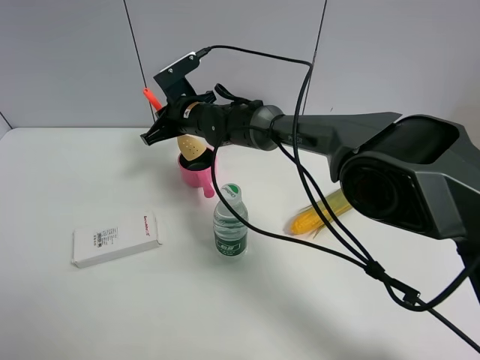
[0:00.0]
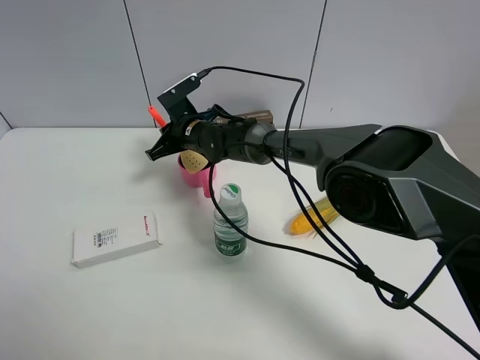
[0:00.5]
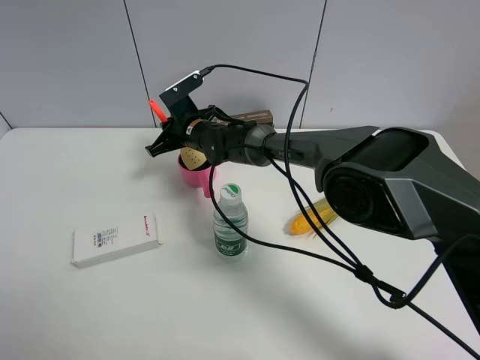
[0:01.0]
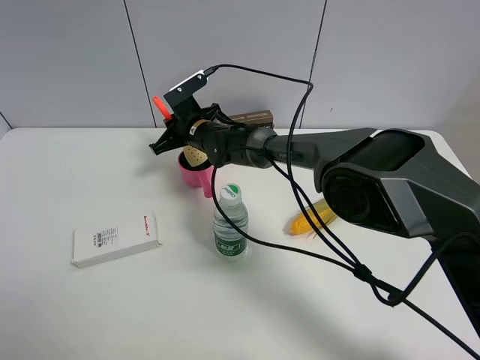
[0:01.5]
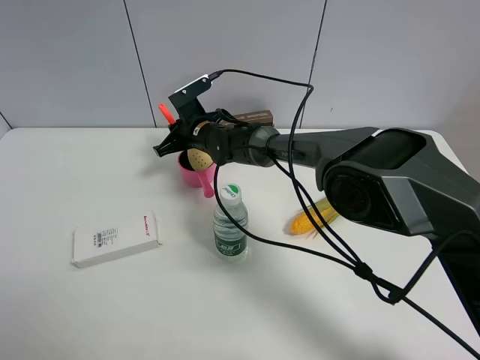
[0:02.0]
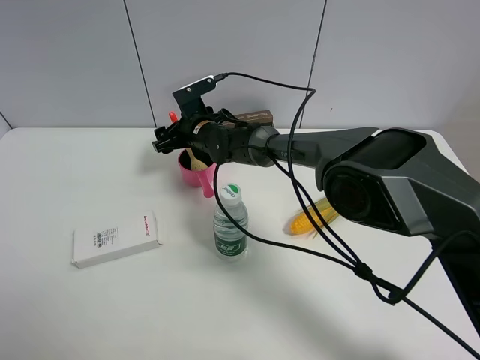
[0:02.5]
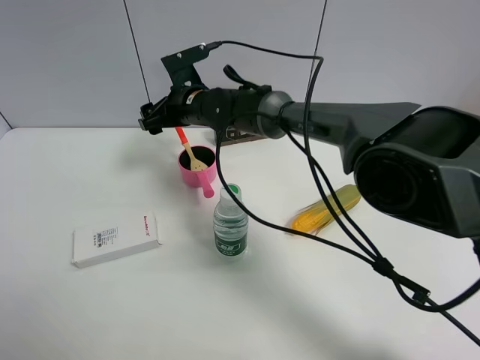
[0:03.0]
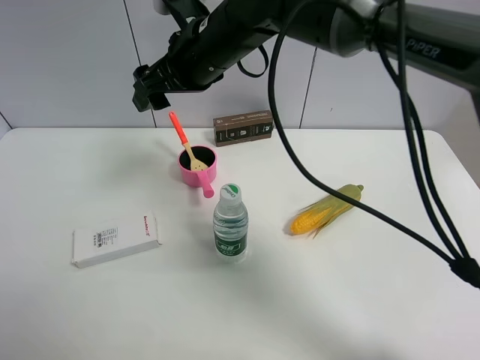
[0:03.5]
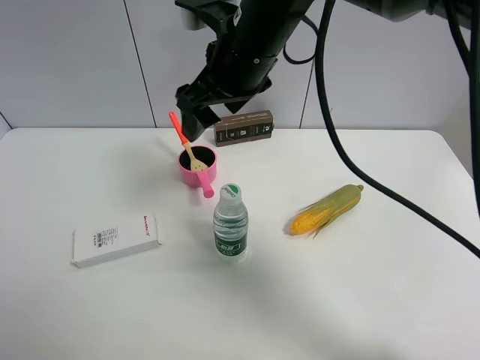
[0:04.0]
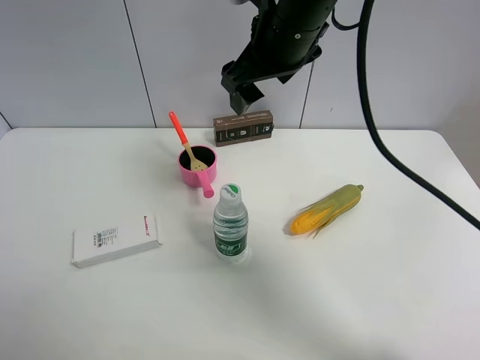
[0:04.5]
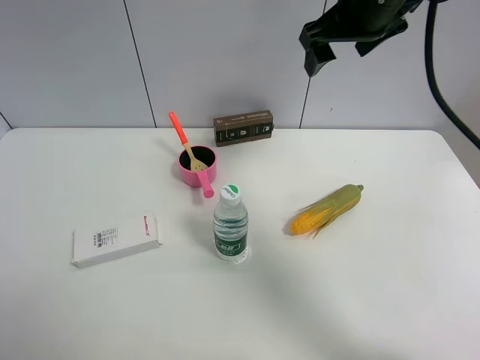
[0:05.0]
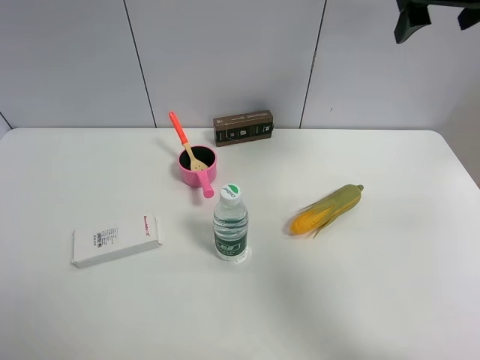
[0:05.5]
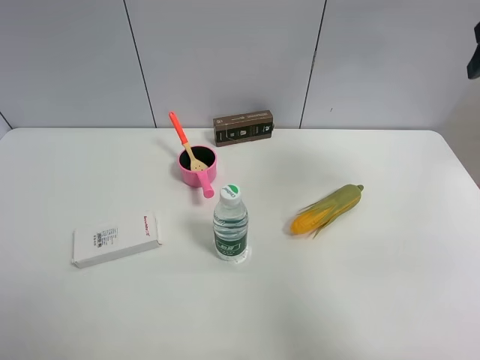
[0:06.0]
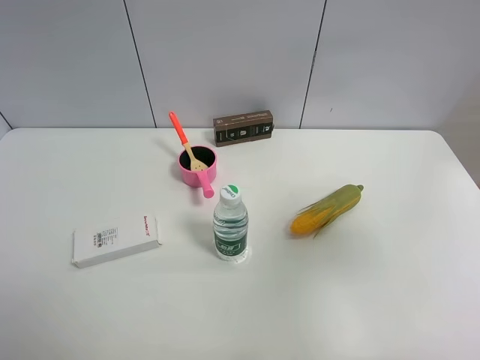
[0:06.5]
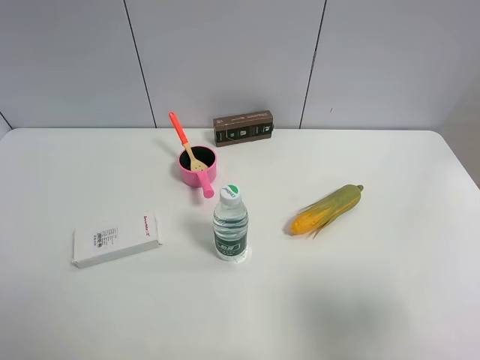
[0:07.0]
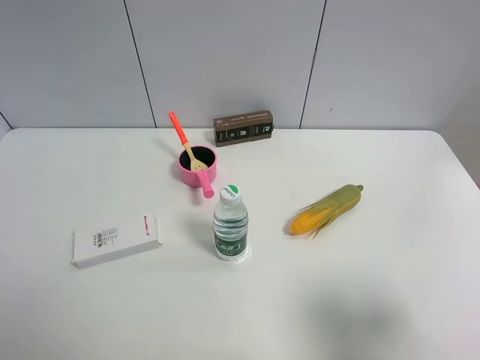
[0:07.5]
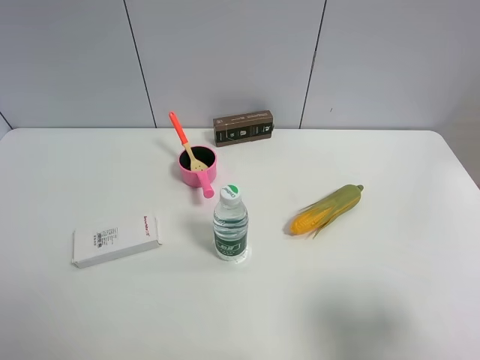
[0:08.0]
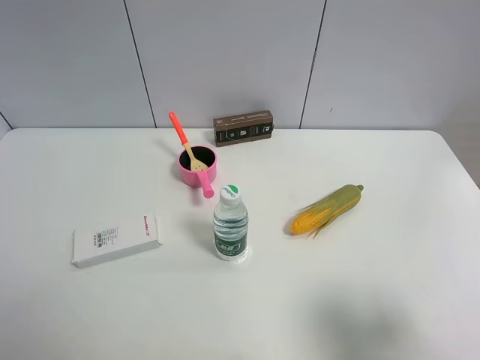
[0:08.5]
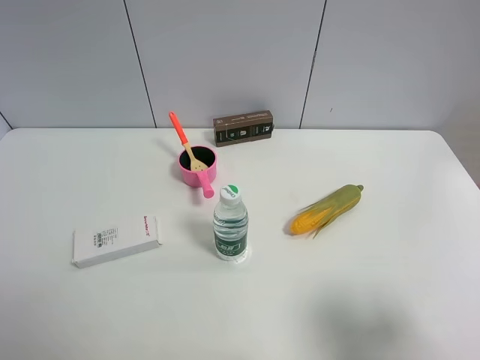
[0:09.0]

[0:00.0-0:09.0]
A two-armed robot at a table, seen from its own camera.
Task of the whole recording: the gripper move the object.
Step, 0:00.0 to 0:02.5: Place the cooking shovel into the pink pot with the right gripper.
0:00.0 to 0:02.0: The grippers move only a little.
0:02.0 to 0:04.5: The right gripper shifts about 30 cm upward, backward and to the right, and opens its fingers.
0:04.5 to 0:07.0: The right gripper travels backward and to the right by approximately 40 cm.

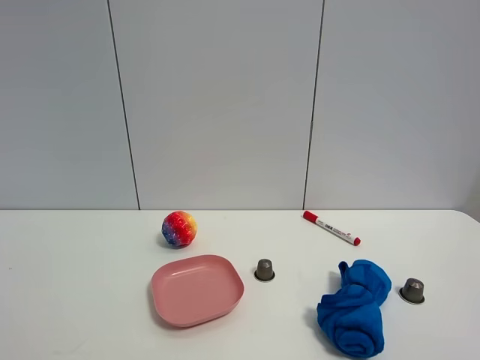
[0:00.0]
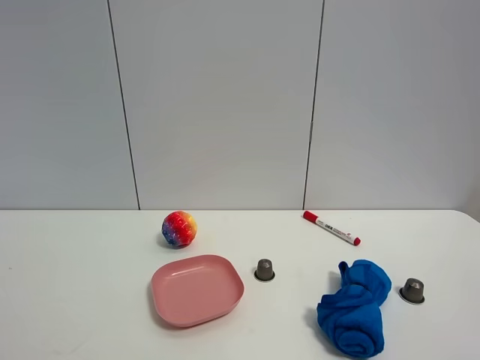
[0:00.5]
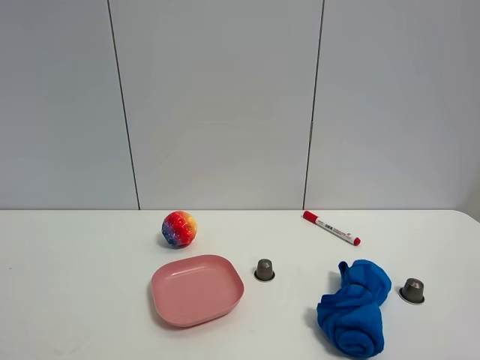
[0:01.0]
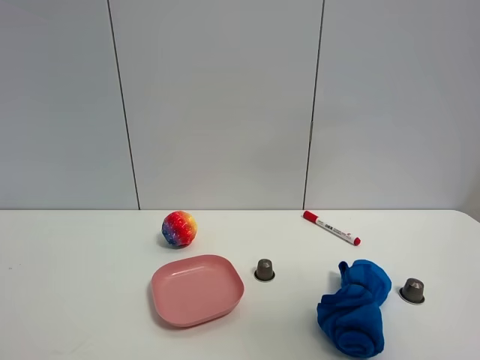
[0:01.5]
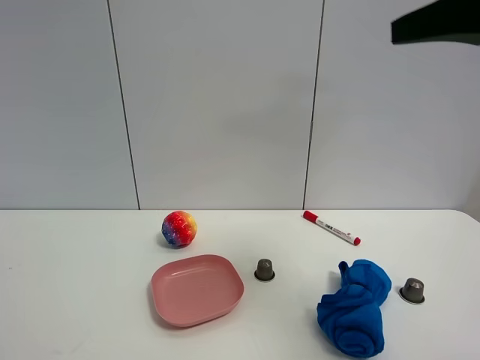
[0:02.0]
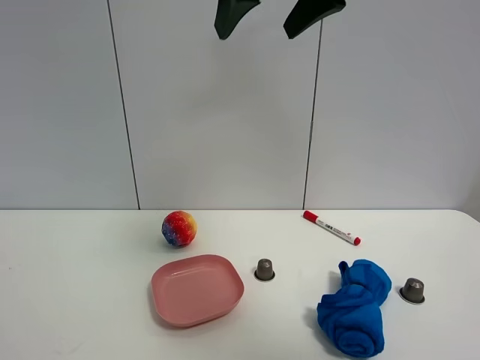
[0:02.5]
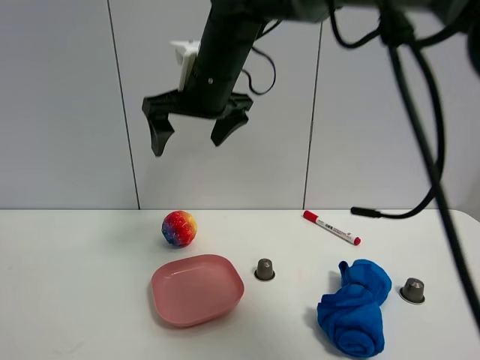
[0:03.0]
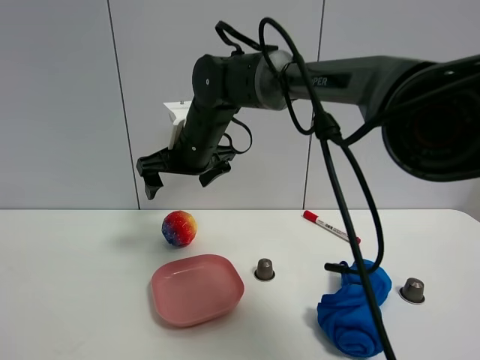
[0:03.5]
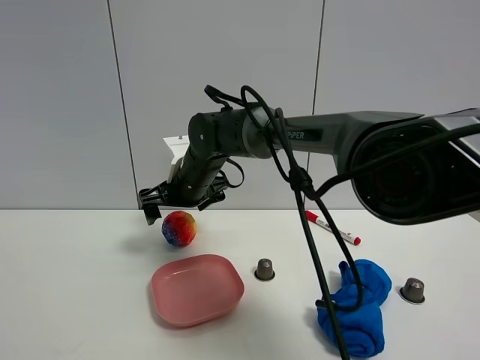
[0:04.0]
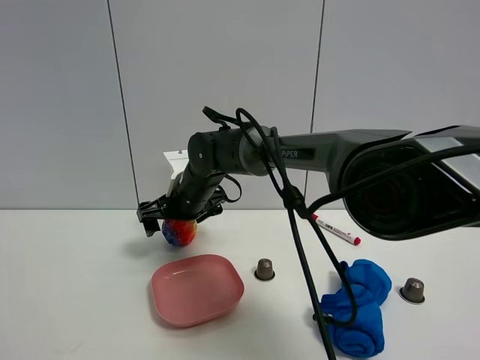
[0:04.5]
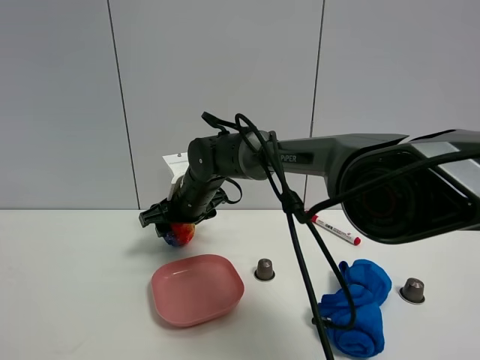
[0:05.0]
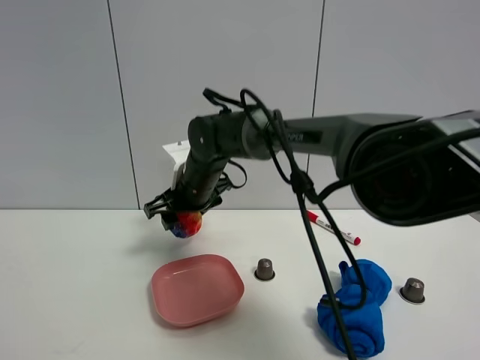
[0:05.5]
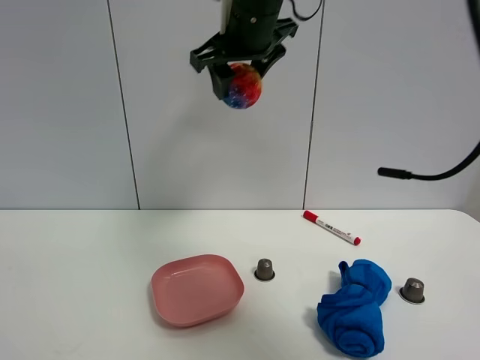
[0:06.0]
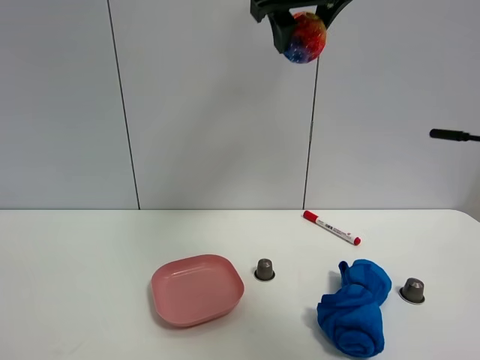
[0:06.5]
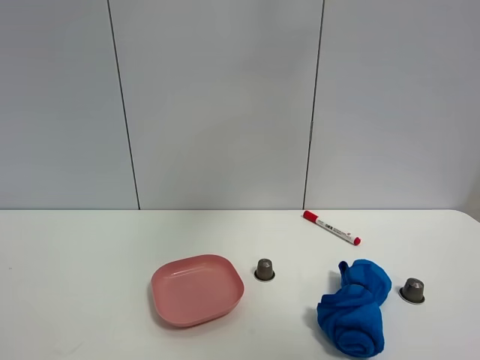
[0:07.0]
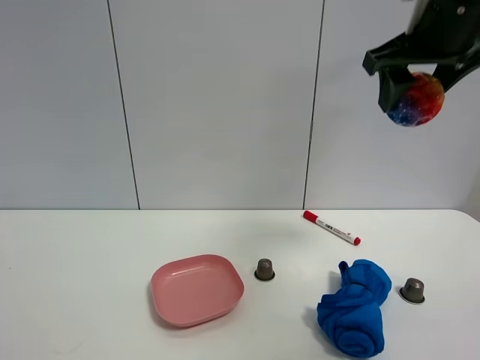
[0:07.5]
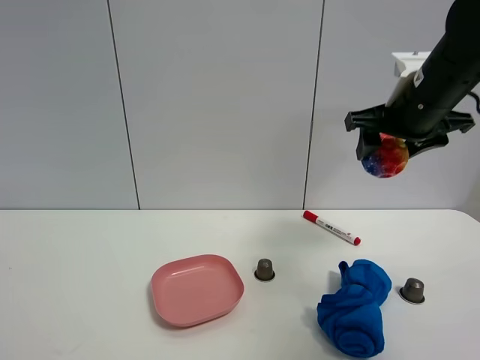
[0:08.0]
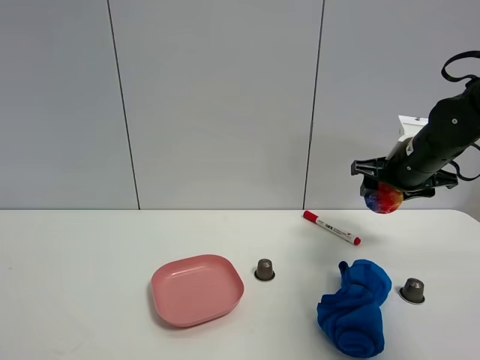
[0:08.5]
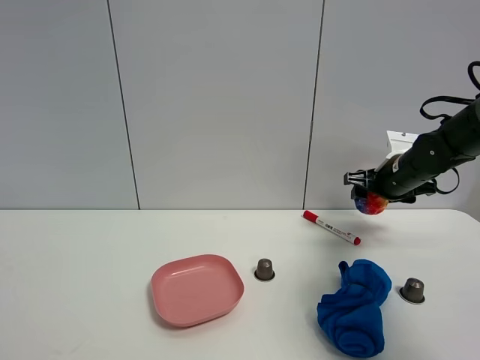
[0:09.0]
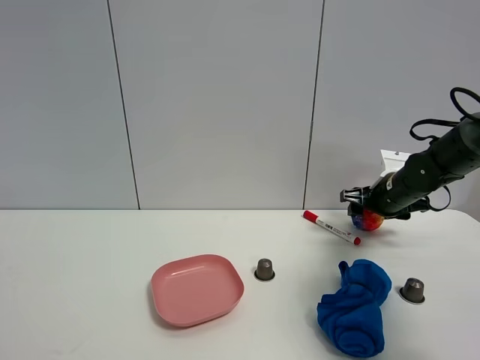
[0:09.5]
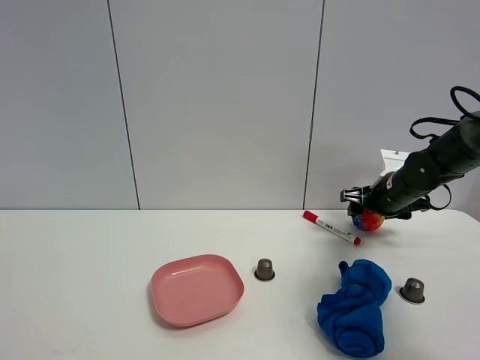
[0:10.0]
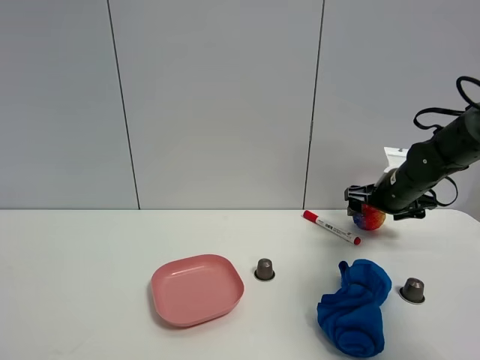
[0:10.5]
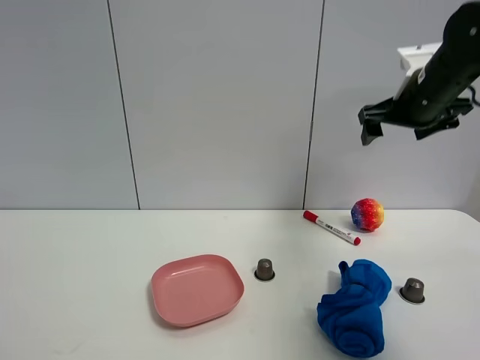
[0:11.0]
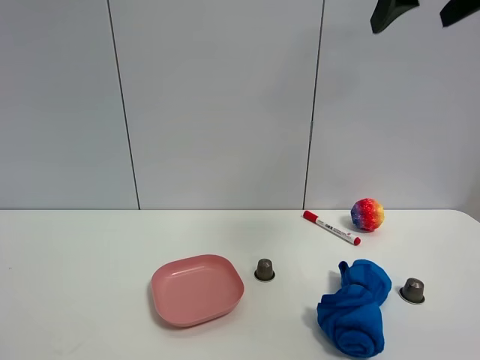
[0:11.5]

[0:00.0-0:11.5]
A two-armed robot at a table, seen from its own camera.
Task of the whole recording: the gripper move the object.
Step, 0:00.0 to 0:05.0: Grasp the colorful ball with the right gripper.
Step, 0:05.5 to 0:10.5: Place the colorful ball on the table with the right gripper.
0:00.0 to 0:02.0: The right gripper is displaced forward and upward by approximately 25 cm.
0:02.0 to 0:04.0: The right gripper moves to the left, downward and forward, approximately 40 cm.
0:04.0 to 0:06.0: The right gripper goes some 25 cm upward, and closes.
0:06.0 to 0:07.5: The right gripper travels to the right by about 20 cm.
0:07.5 to 0:09.5: The right gripper travels downward and forward by about 30 cm.
0:09.5 to 0:11.5: The right gripper moves upward and backward, about 40 cm, and opens up.

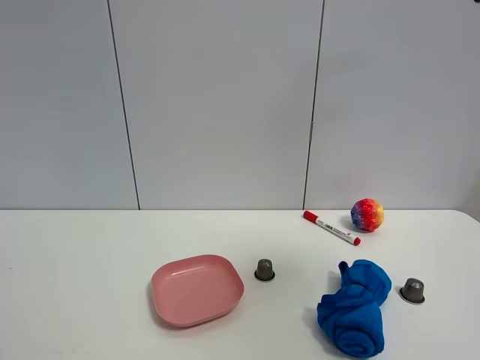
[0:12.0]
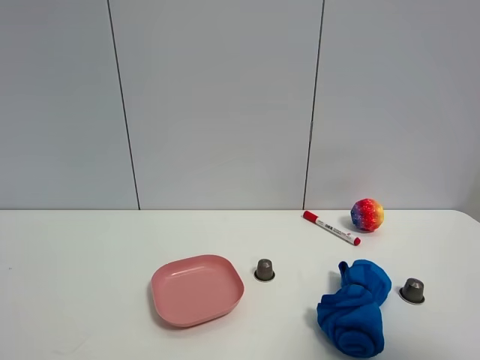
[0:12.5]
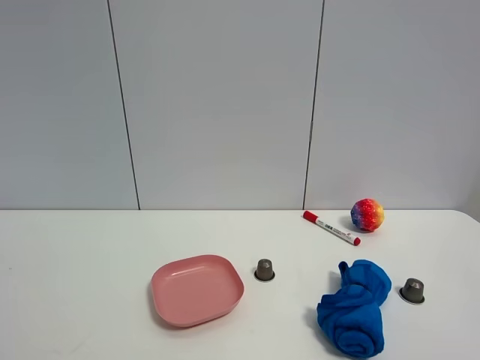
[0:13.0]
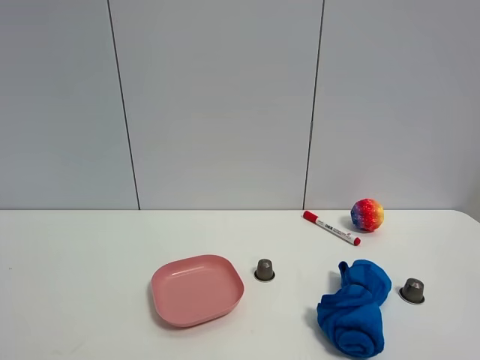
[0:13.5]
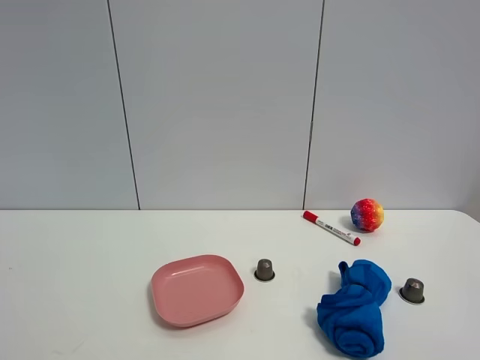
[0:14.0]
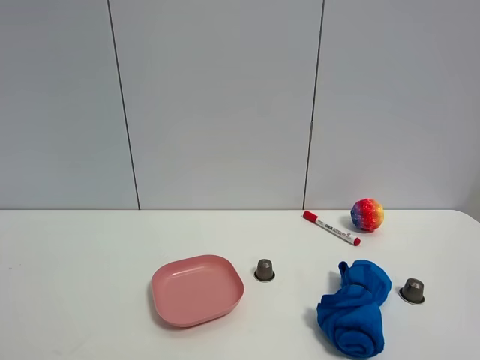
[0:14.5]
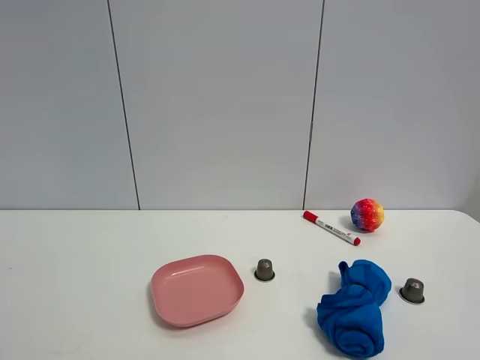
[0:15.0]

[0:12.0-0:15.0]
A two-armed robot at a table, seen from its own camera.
Task of the whole recording: the gripper move the object.
0:12.0 to 0:13.5: The right gripper travels backward and downward by about 25 cm.
0:13.5 to 0:15.0: Both grippers stay put.
